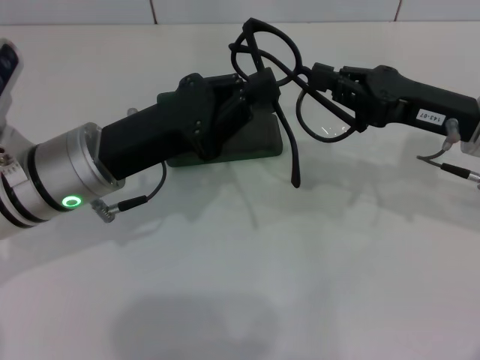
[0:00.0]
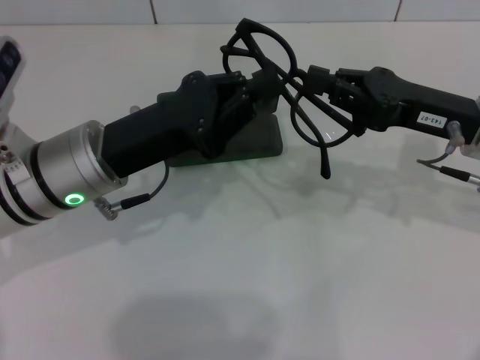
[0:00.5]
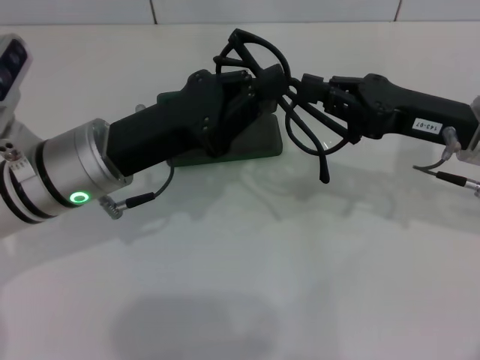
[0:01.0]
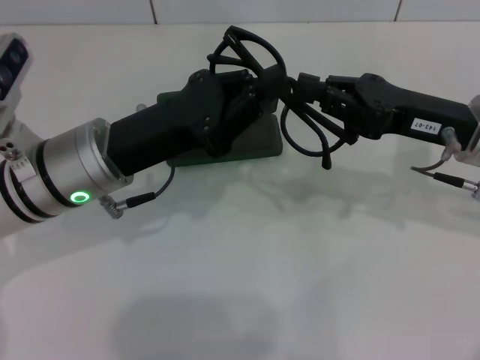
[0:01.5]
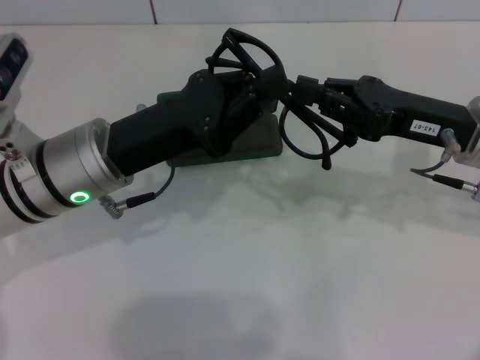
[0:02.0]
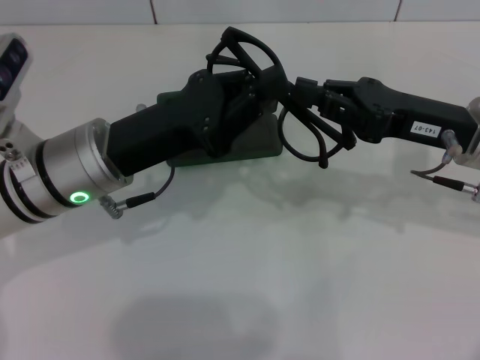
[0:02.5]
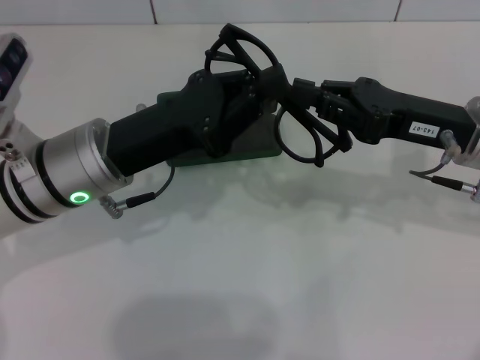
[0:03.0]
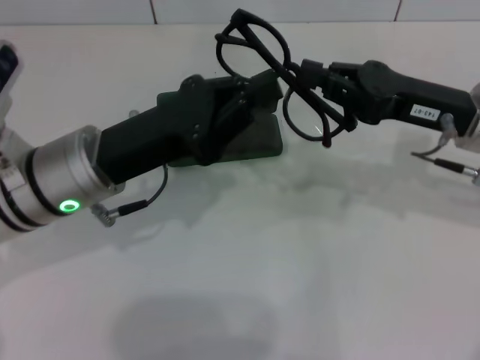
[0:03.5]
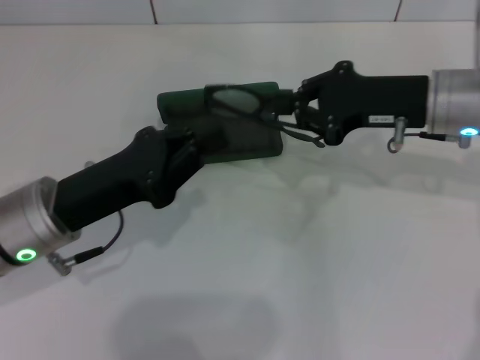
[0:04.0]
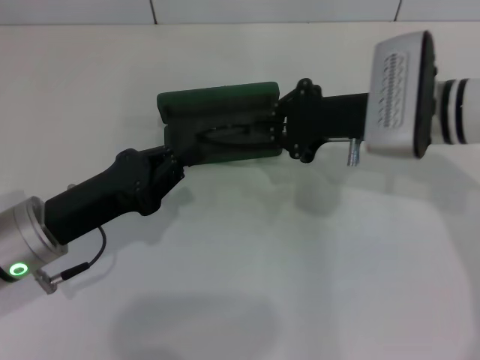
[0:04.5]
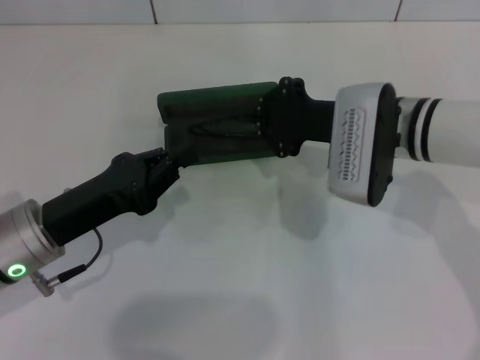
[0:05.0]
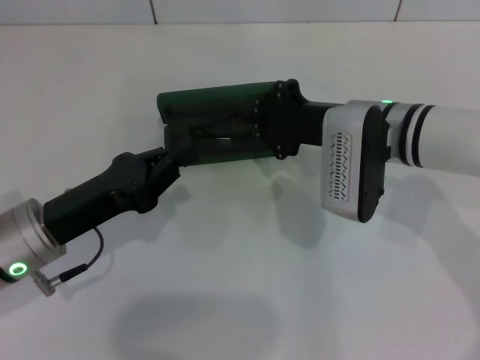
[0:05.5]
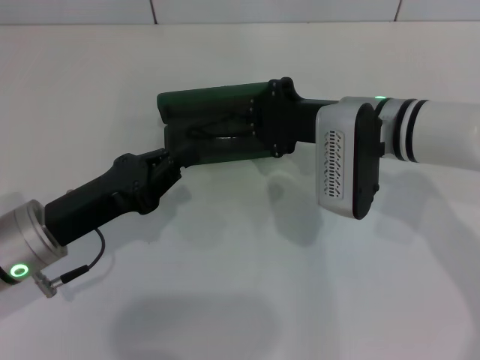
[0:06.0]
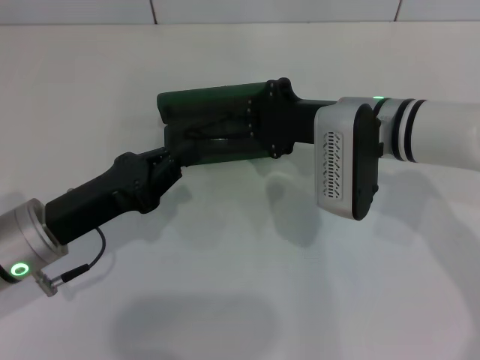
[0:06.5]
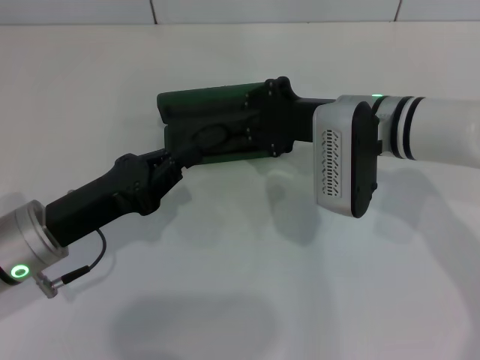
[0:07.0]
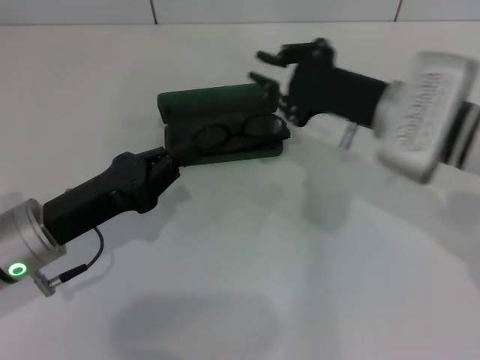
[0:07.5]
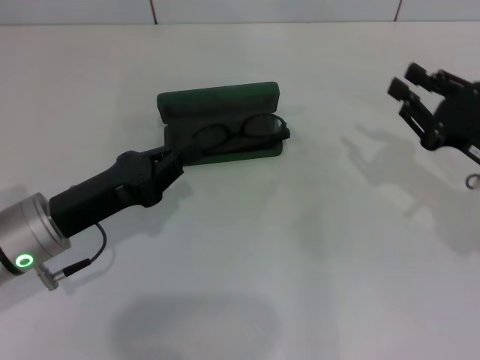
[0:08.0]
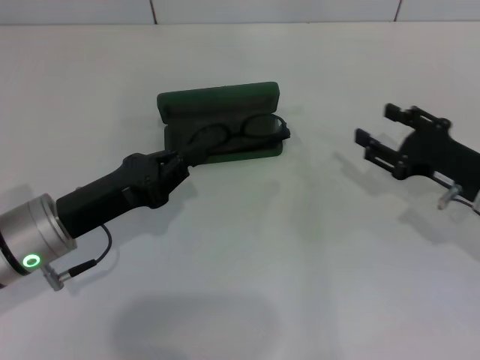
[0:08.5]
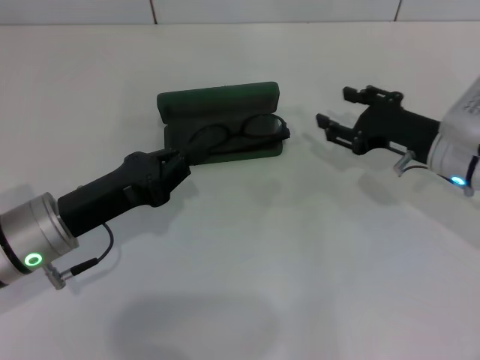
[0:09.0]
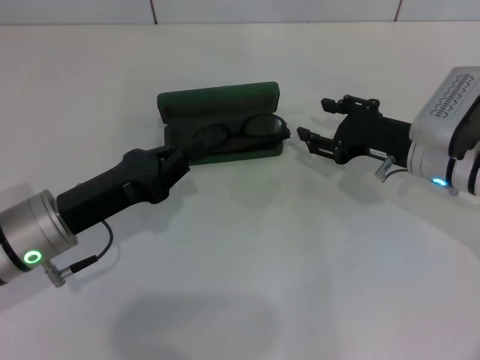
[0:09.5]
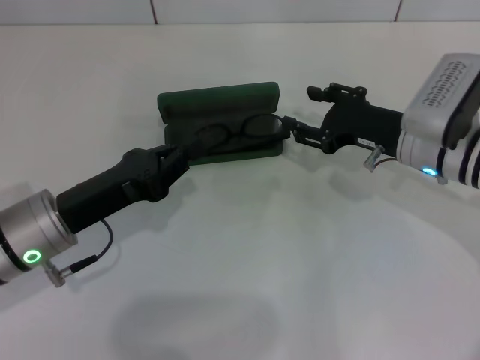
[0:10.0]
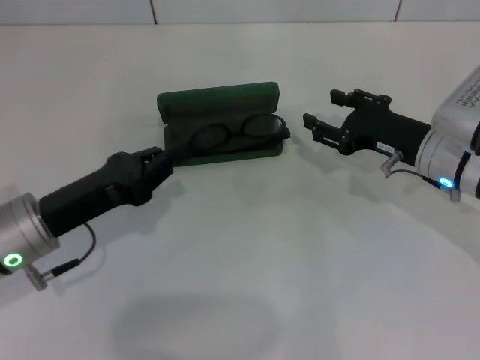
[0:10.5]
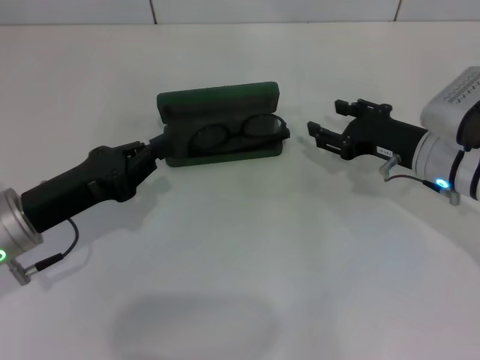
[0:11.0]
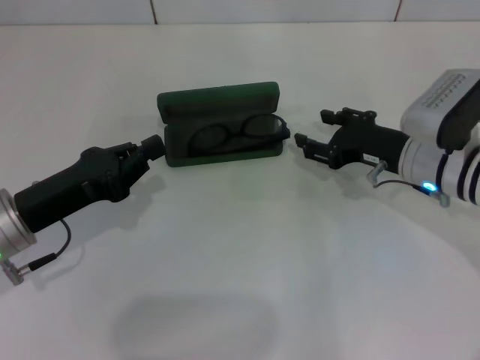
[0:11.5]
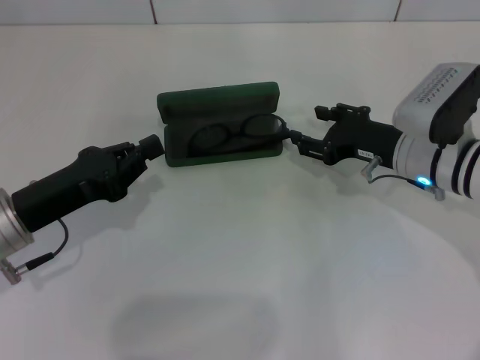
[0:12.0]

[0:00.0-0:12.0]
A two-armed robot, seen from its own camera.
Step, 0:00.0 to 0:02.5: Fold the frame with your left hand.
0:00.0 to 0:02.0: The grippers make only small movements.
0:02.0 to 0:04.0: The left gripper ends up approximately 5 cm from where it was.
0:04.0 to 0:06.0: The right gripper goes some 10 cm to the left.
0:06.0 to 0:08.0: The right gripper shifts roughly 20 cm to the right and backward.
0:08.0 to 0:10.0: The right gripper travels to the left and forward by approximately 10 cm, and opens up.
0:10.0 to 0:12.0: The grippers stay close to where they were, moving slightly.

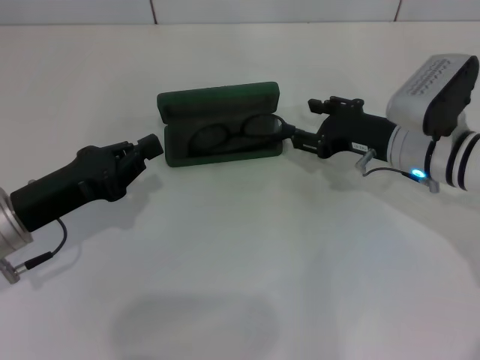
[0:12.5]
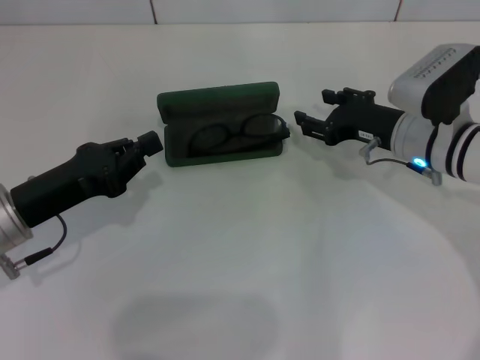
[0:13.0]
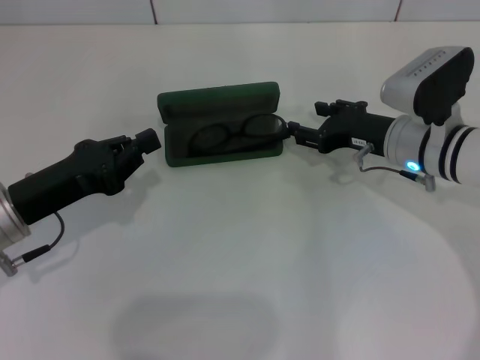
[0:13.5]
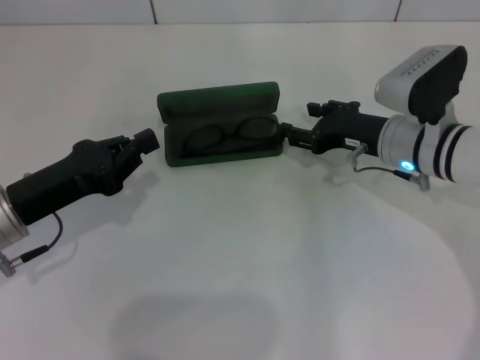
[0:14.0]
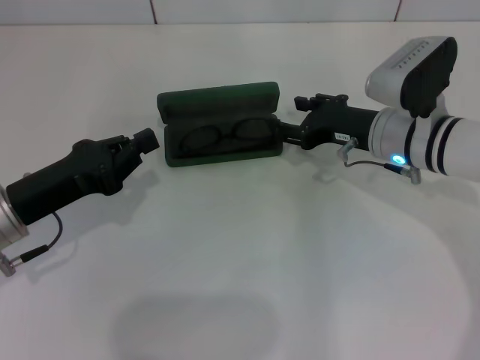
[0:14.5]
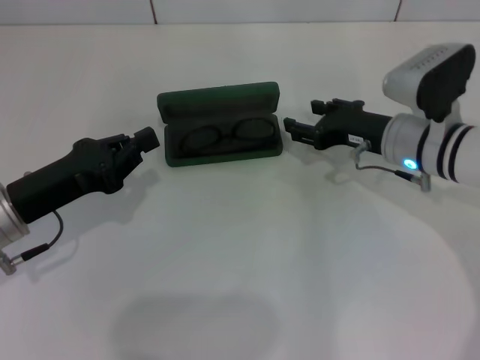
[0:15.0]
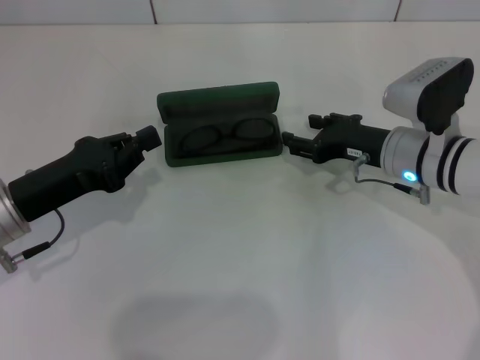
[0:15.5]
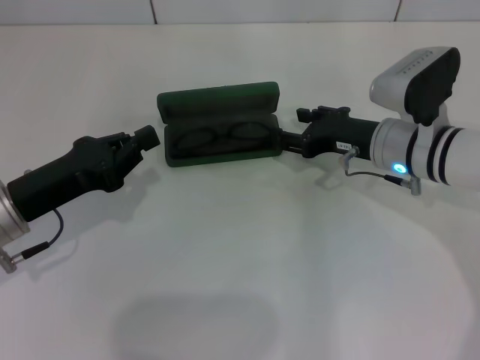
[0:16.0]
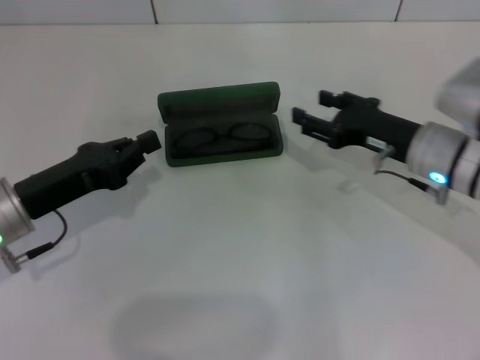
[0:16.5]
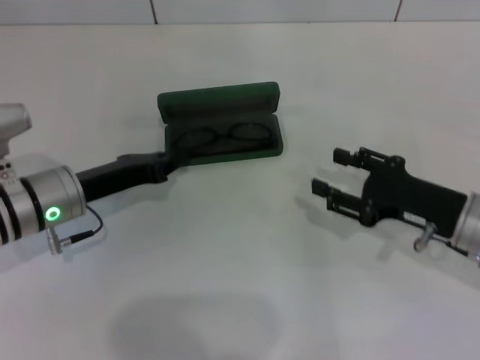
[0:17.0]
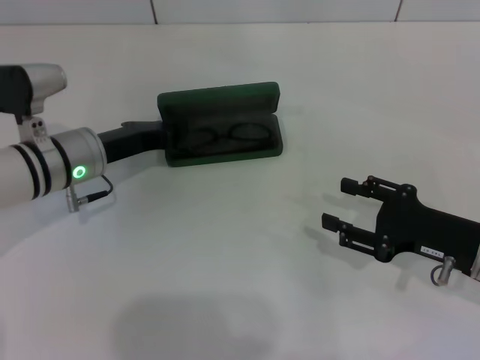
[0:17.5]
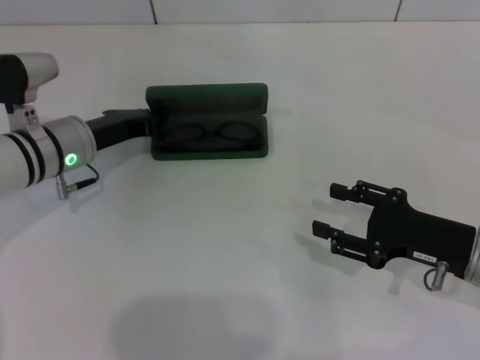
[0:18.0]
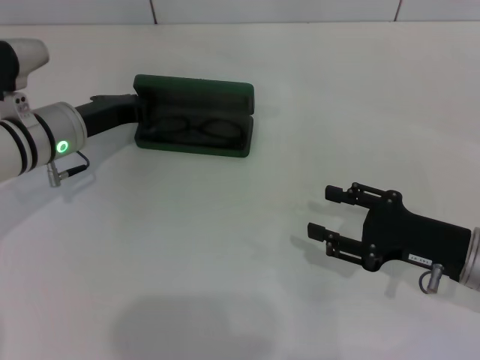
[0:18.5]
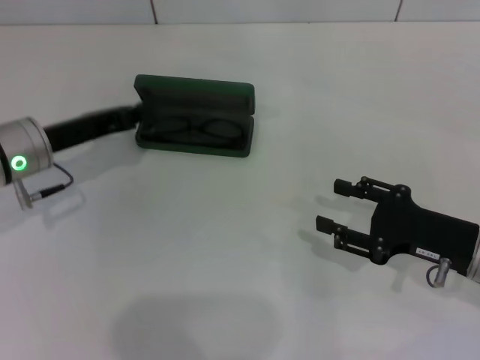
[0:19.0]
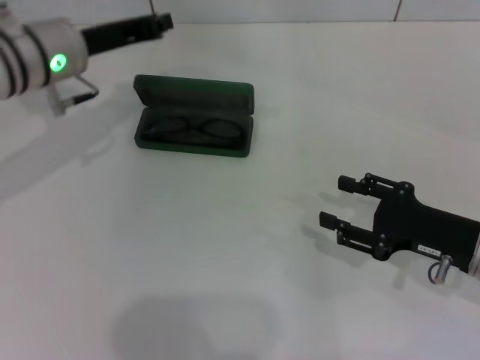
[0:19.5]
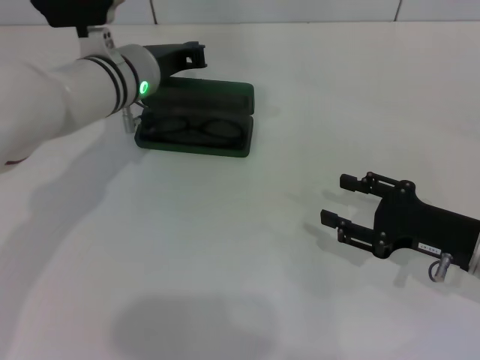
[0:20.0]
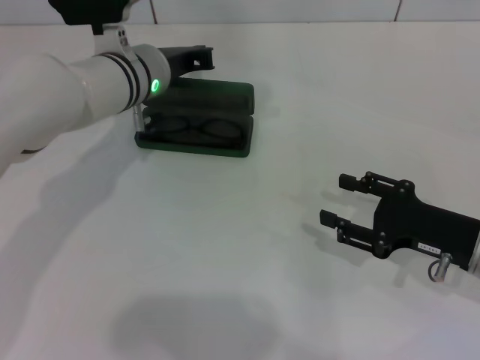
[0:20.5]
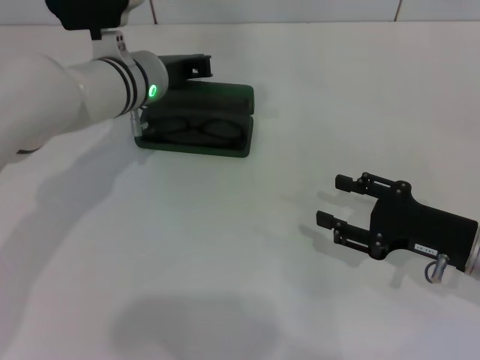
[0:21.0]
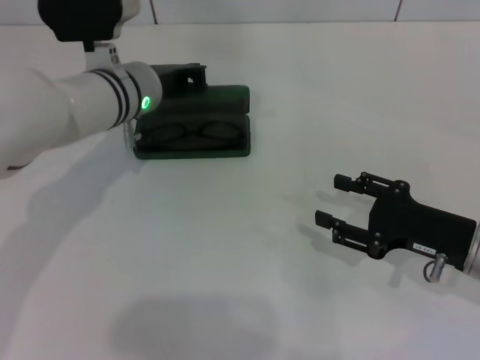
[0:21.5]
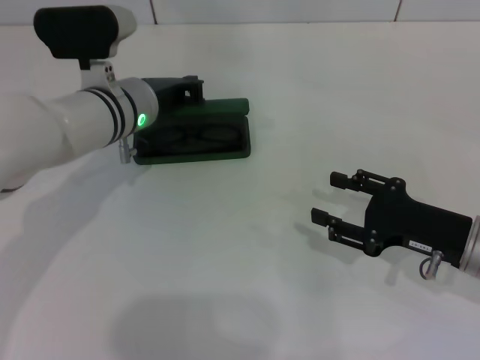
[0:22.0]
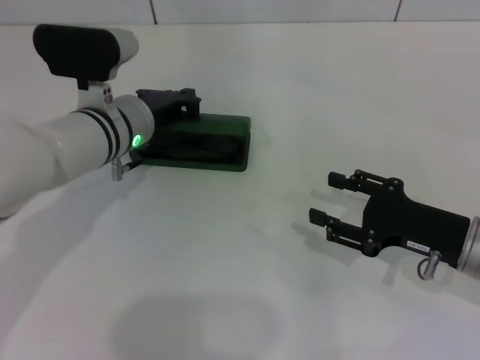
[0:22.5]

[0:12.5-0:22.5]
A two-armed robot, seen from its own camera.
Step, 0:12.5 to 0:14.5: Put the glasses into the case with your right hand.
0:12.5 to 0:16.5: The grippers stay close to where they were, moving slightly.
0:16.5 to 0:18.5: The right gripper goes roughly 10 cm backward; the left gripper moves forward, approximately 10 cm.
0:18.5 to 0:20.5: The left gripper is displaced to the right by roughly 10 cm.
0:20.5 to 0:22.5: The left gripper ends up about 5 cm from where it was.

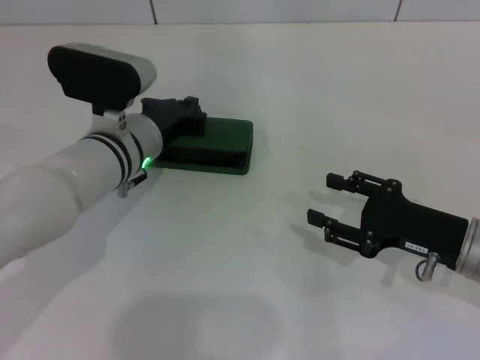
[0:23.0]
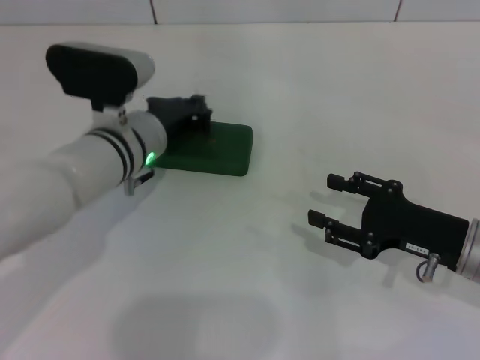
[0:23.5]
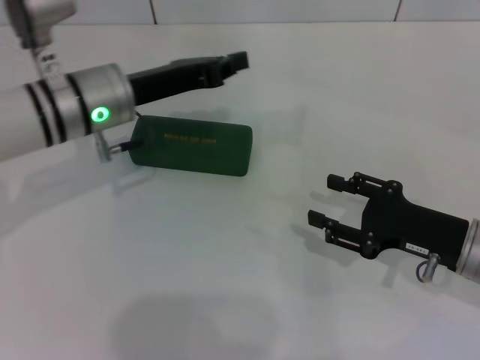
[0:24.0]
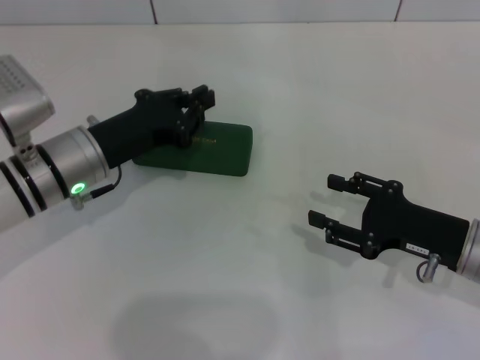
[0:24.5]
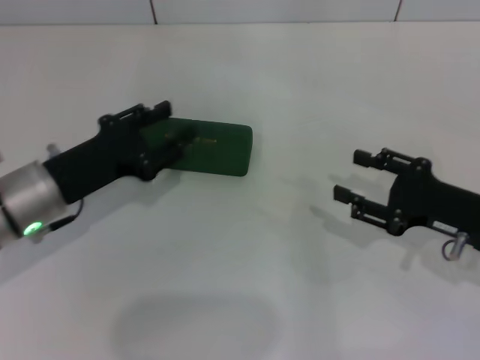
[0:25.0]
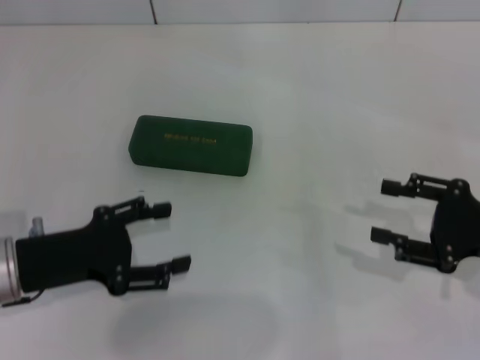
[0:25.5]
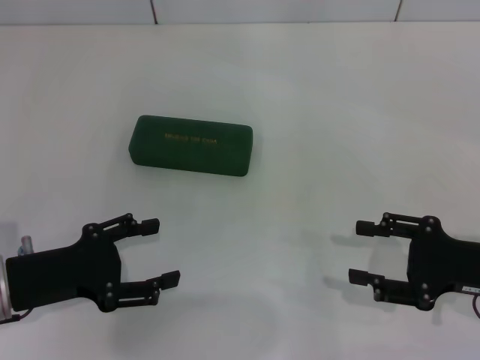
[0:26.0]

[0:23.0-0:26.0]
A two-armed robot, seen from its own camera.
0:23.0 to 0:24.5: The left gripper is displaced to the left by approximately 5 cm.
0:24.5 to 0:26.0: The left gripper shifts roughly 15 cm backward and to the left, and opens up; the right gripper shifts by about 5 cm.
